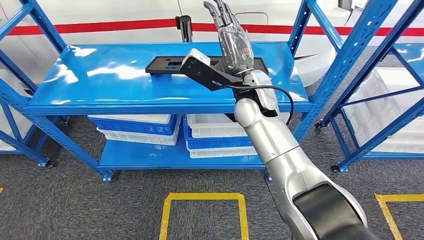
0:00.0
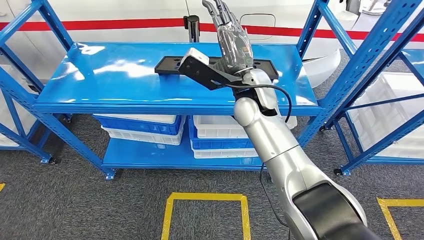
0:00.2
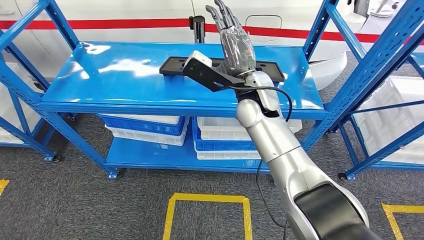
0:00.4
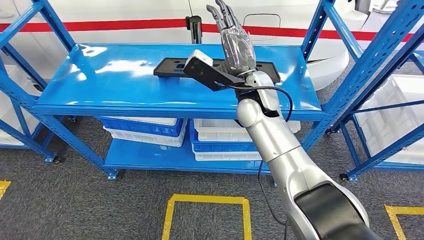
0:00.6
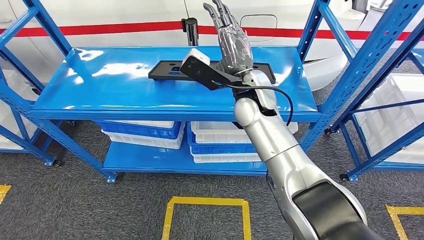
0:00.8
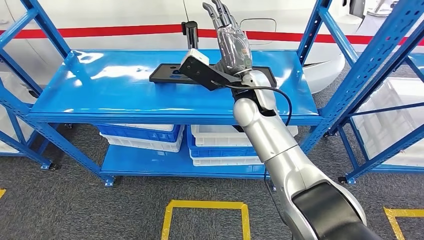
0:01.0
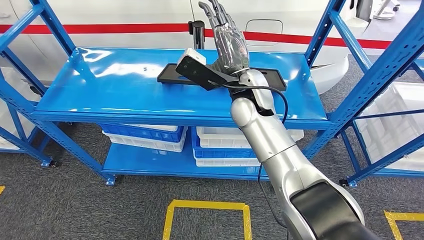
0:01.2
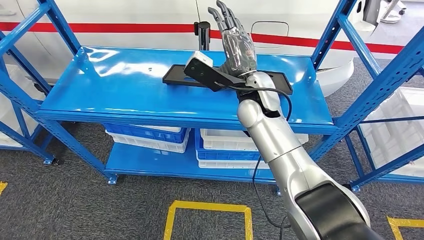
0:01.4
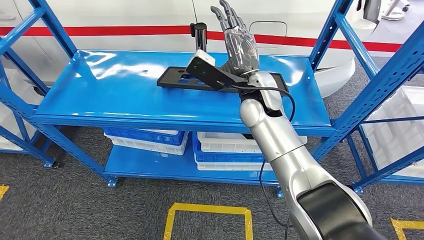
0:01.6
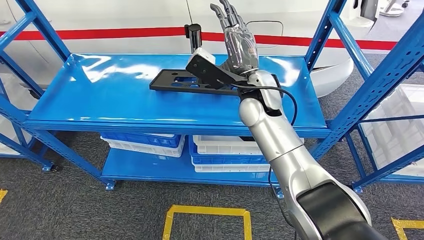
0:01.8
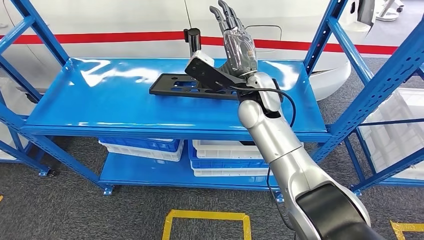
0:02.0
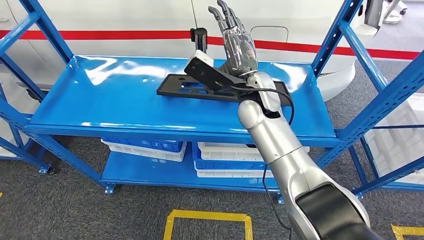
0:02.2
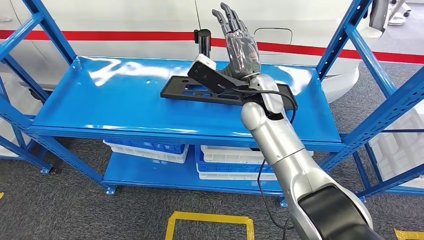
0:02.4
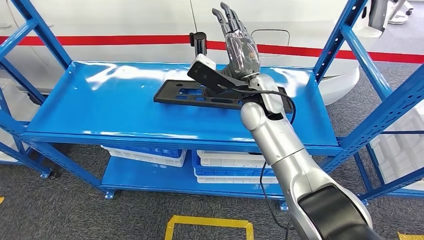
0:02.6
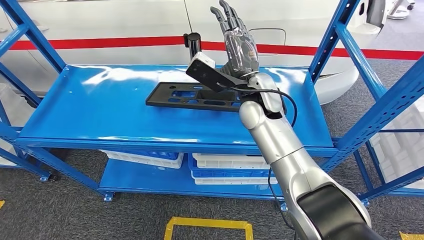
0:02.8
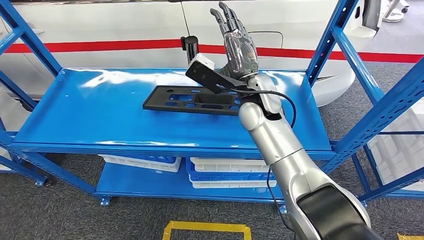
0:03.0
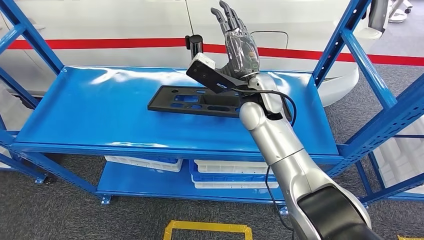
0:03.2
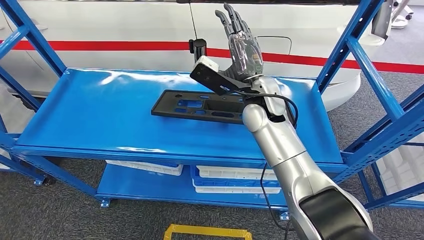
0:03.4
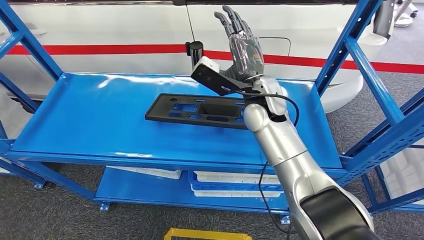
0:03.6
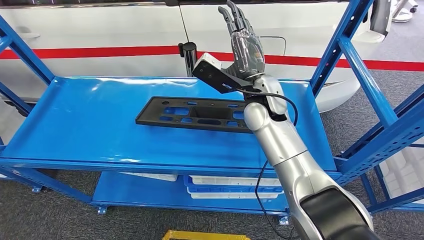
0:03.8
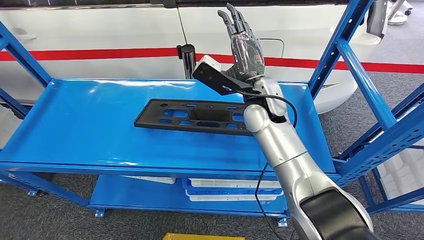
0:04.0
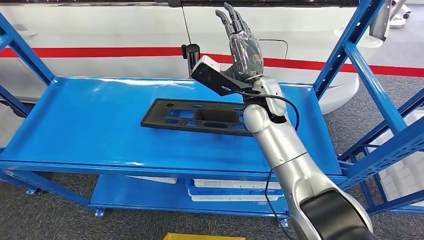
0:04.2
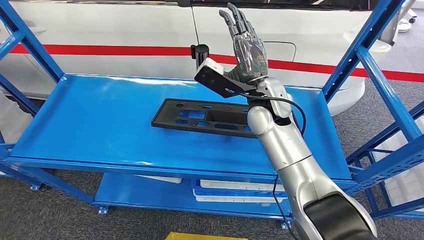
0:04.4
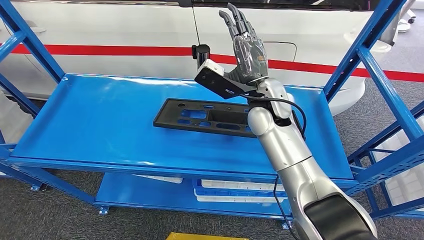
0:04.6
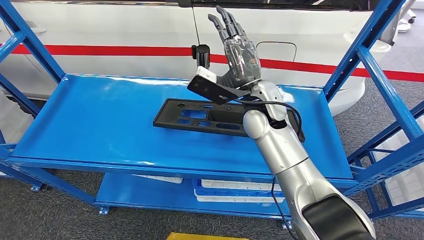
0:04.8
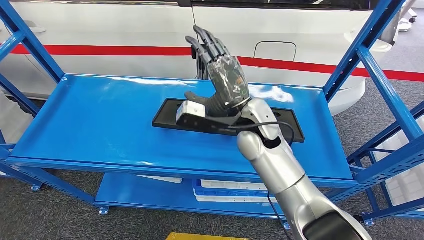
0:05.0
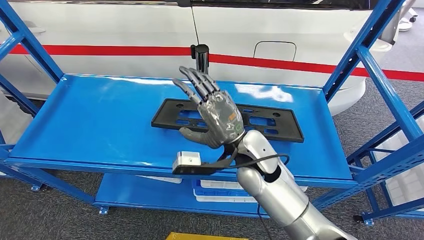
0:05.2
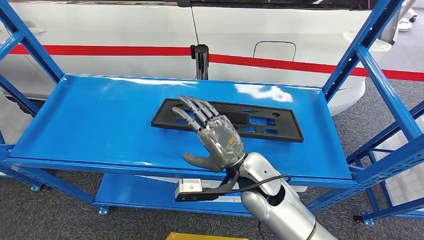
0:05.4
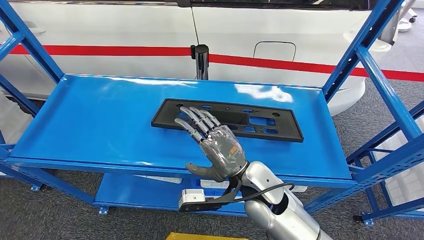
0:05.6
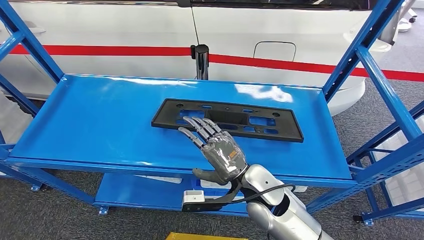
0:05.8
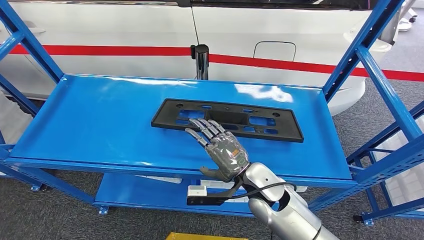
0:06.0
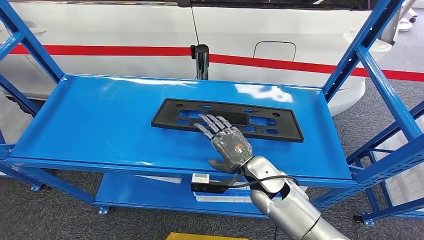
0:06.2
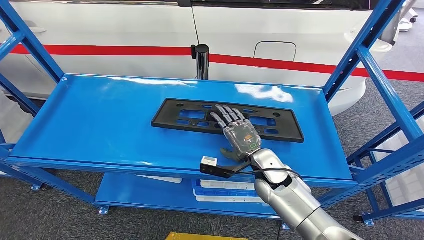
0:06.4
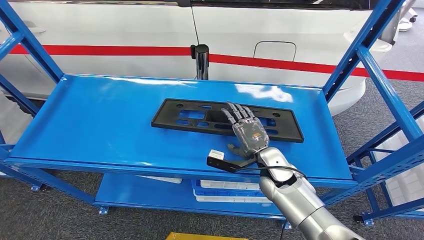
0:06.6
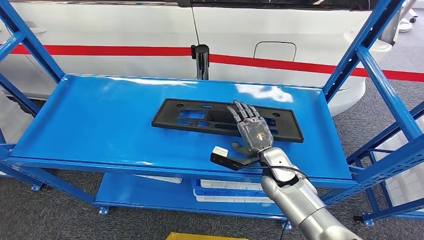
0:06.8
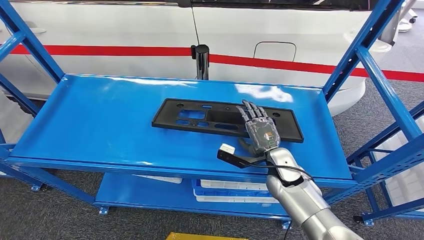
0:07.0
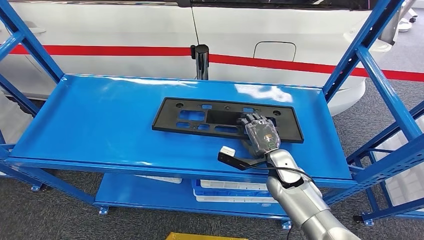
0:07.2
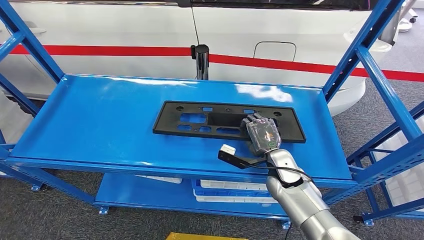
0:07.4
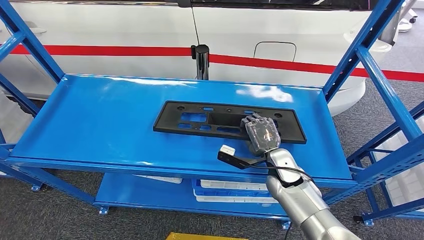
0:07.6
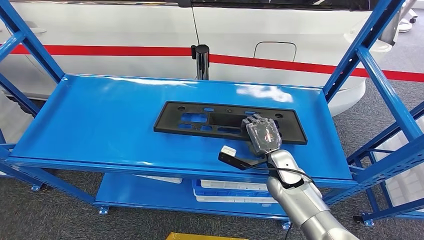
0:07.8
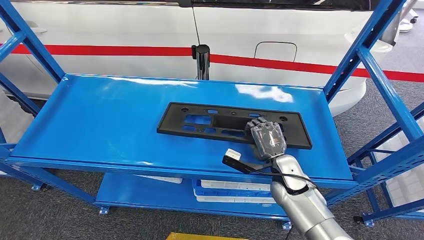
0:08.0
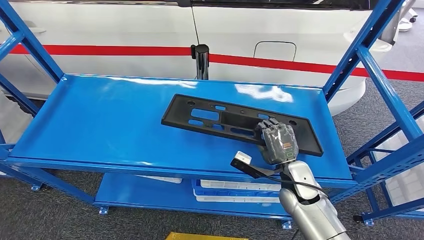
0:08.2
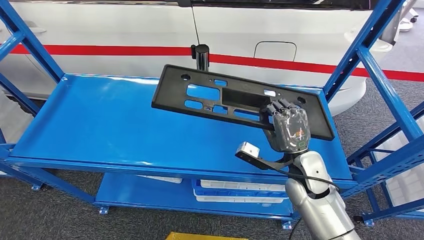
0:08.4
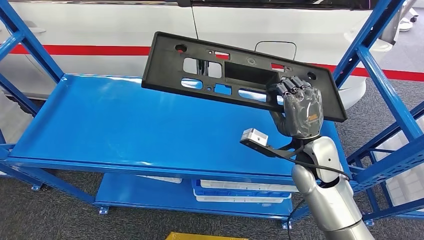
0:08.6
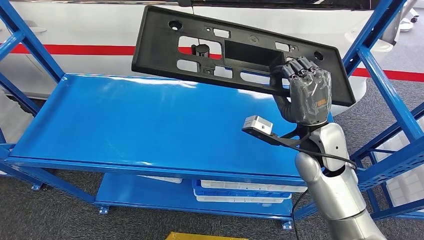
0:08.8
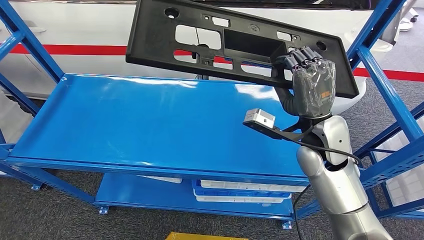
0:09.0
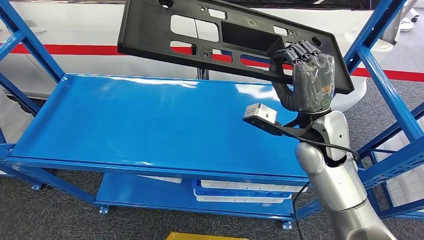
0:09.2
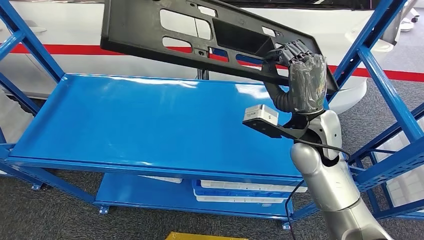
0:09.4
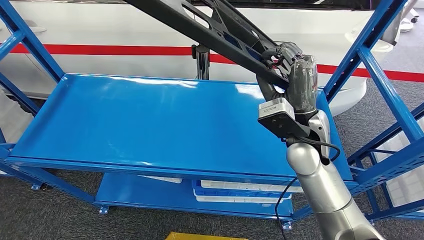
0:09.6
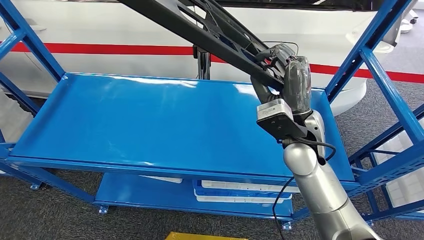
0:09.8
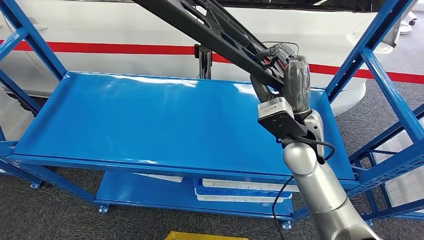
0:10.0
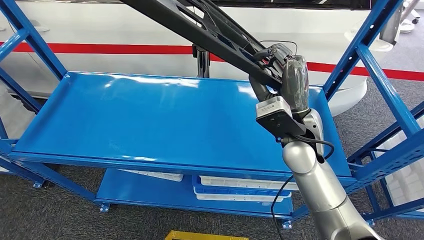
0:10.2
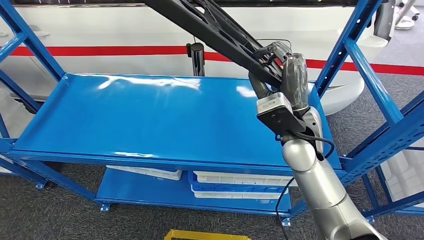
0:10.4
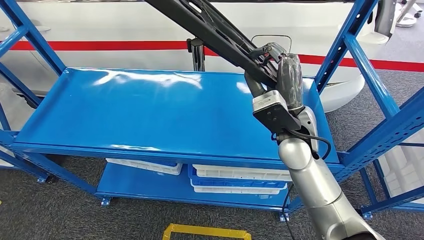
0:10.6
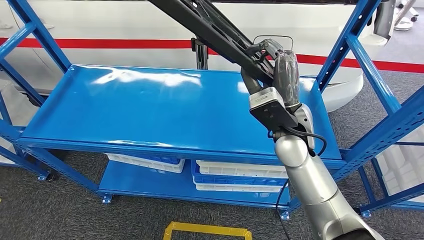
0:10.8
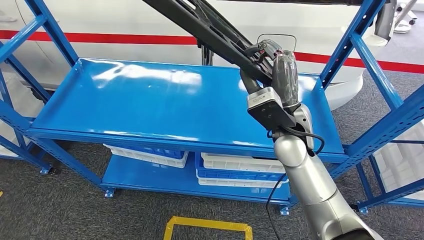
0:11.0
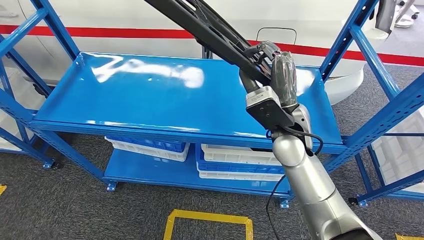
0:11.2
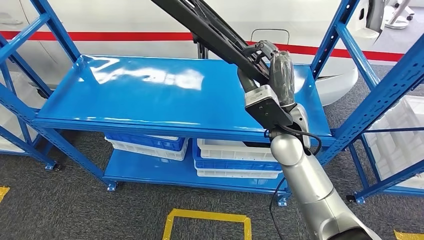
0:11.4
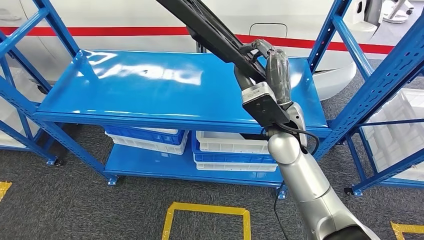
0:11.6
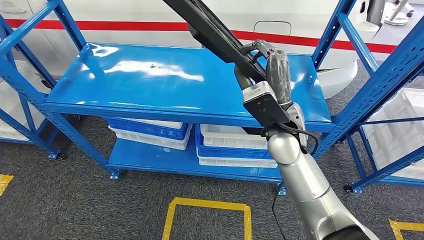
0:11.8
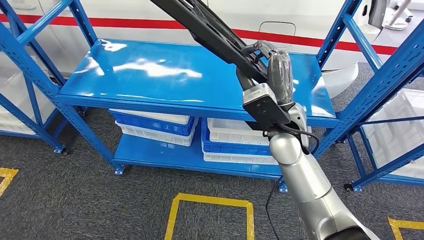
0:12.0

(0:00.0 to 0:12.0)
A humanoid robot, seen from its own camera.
0:04.4 - 0:06.0: The right hand is displaced downward and backward by some 20 cm.
0:06.0 - 0:07.6: The right hand travels to the right and forward by about 10 cm.

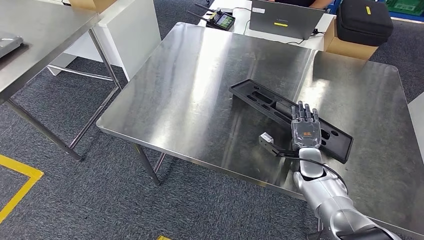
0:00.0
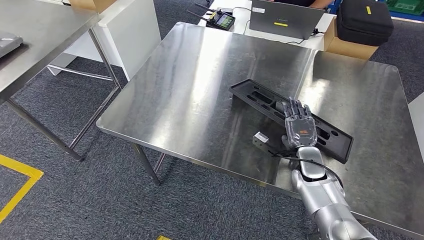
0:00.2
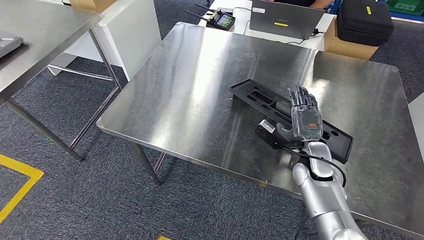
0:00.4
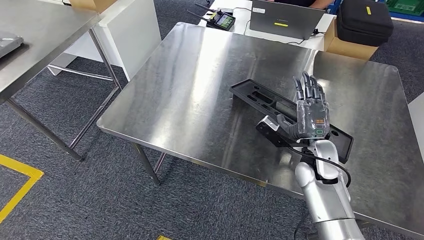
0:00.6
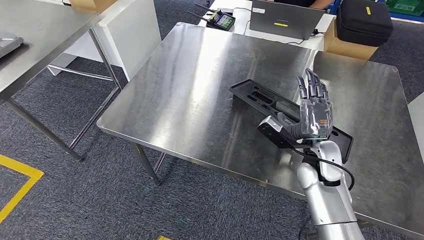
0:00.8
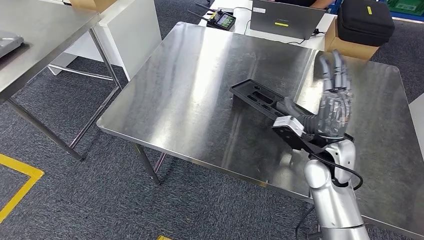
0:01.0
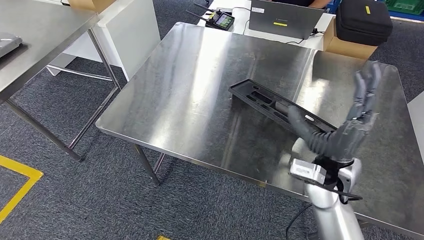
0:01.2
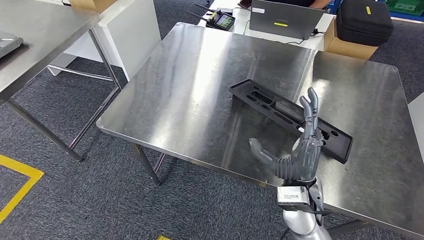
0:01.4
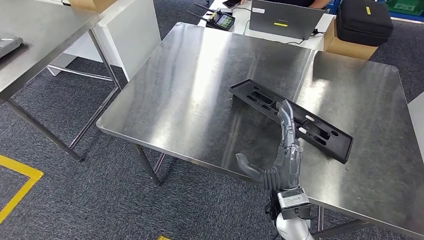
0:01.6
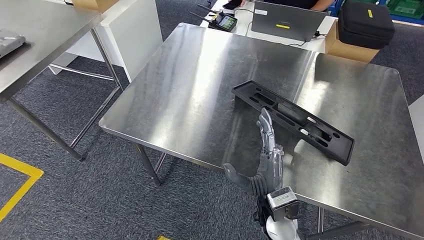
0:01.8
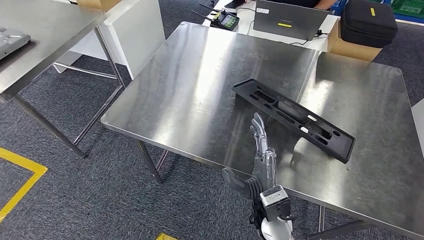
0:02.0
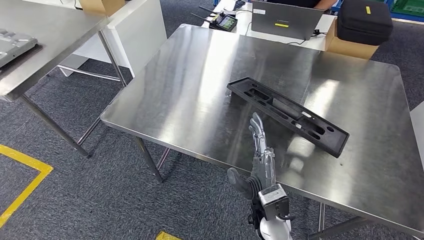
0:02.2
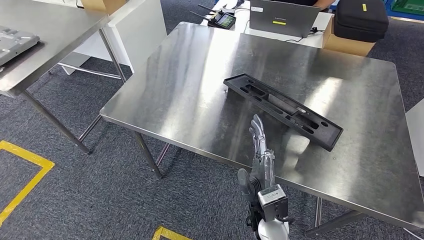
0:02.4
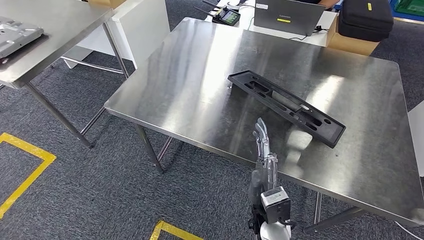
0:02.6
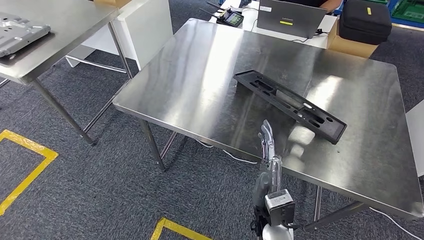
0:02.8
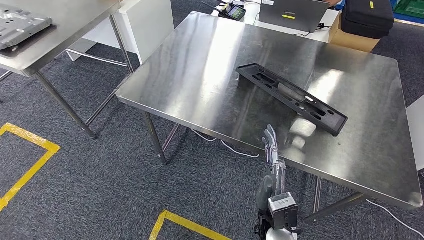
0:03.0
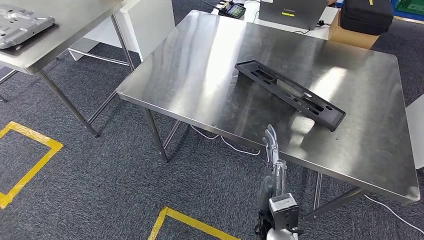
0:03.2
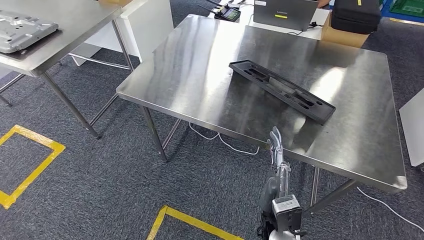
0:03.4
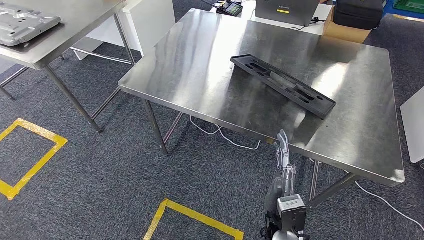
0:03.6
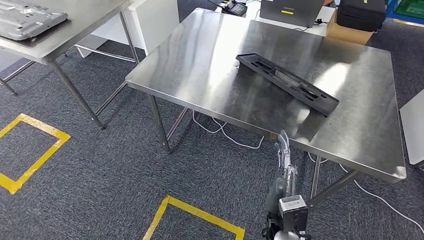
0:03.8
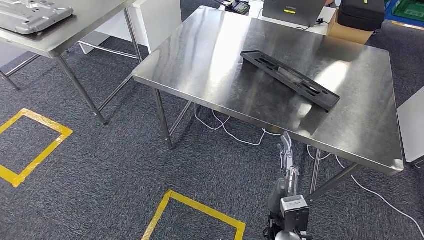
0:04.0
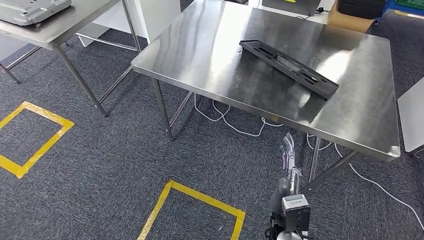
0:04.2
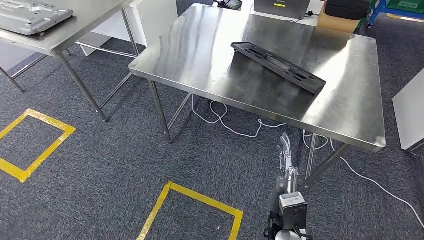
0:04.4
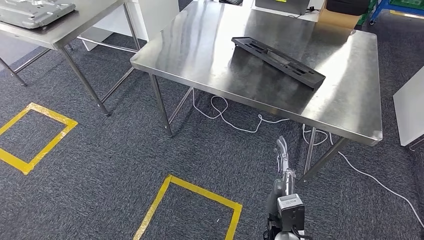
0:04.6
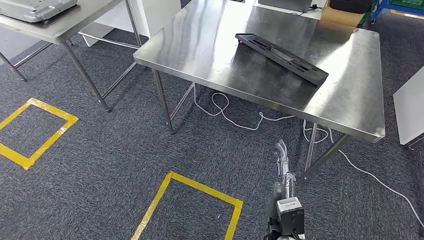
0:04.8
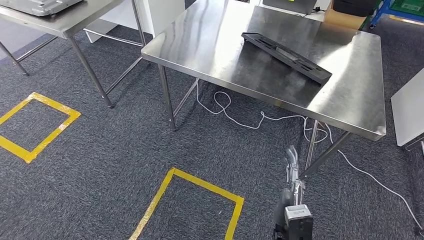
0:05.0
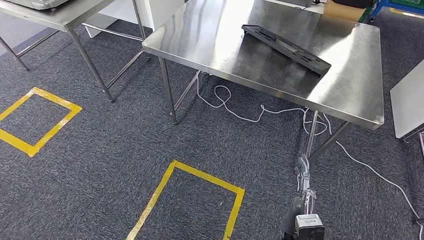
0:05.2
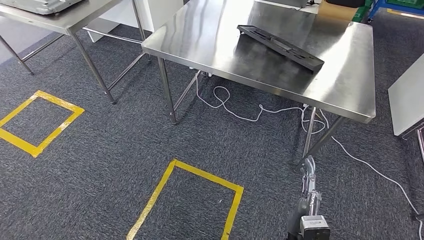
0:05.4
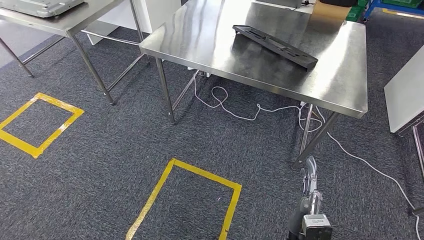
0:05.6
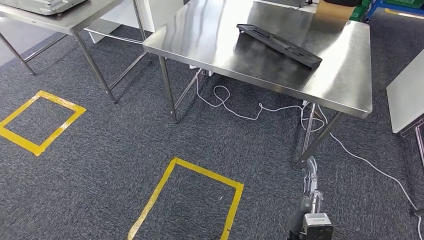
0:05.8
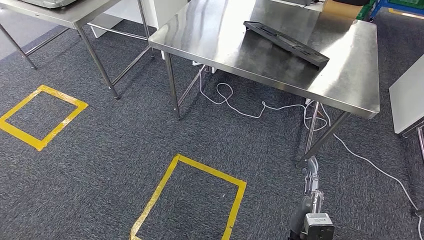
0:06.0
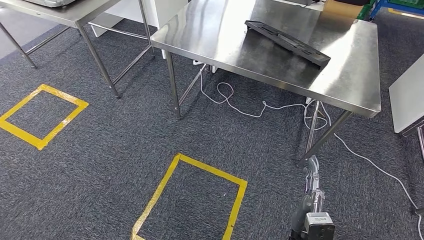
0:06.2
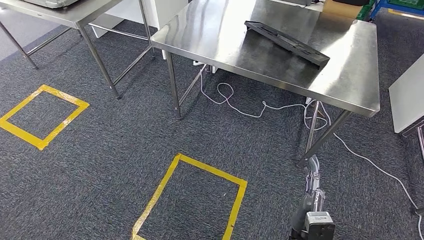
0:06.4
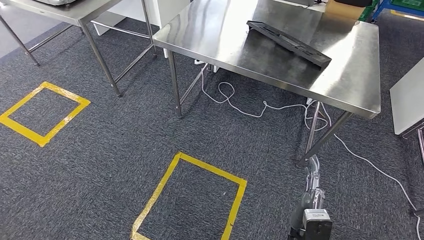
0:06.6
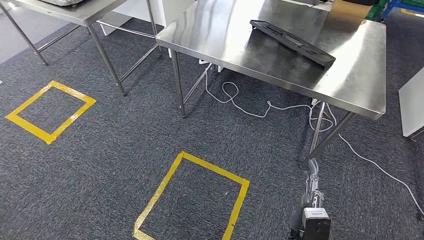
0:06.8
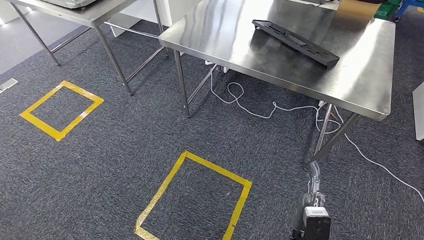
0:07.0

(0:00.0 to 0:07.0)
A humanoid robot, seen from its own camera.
Step, 0:00.0 - 0:06.6: Insert the large material into the corresponding slot on the workbench.
0:00.0 - 0:01.4: The right hand moves backward, to the left and upward, about 20 cm.
